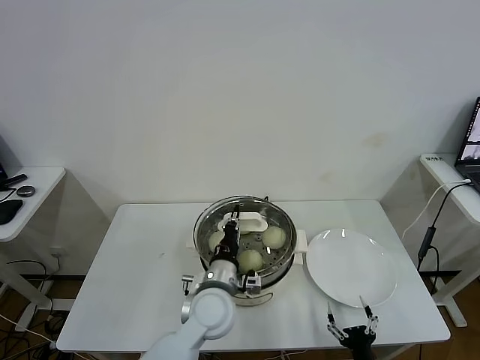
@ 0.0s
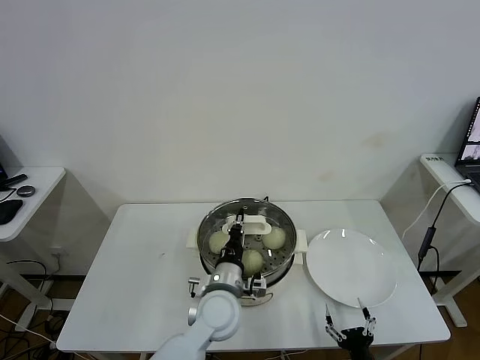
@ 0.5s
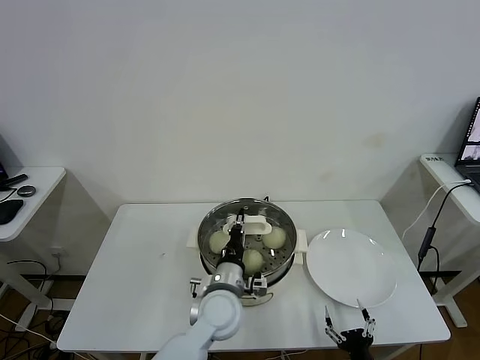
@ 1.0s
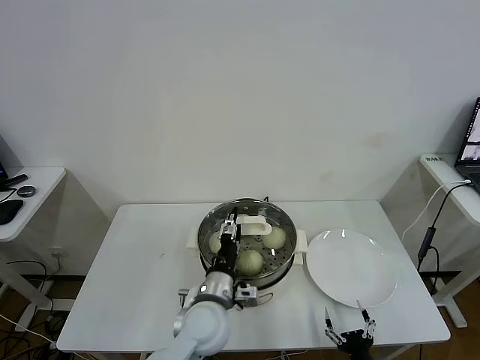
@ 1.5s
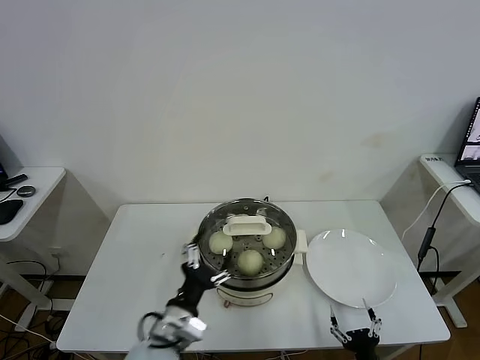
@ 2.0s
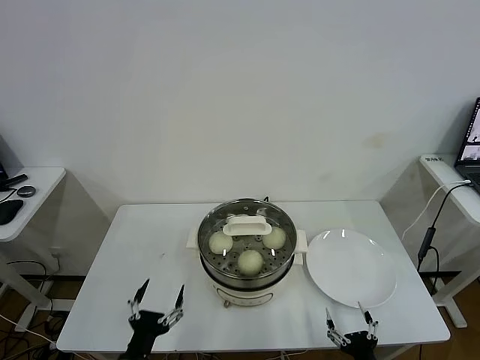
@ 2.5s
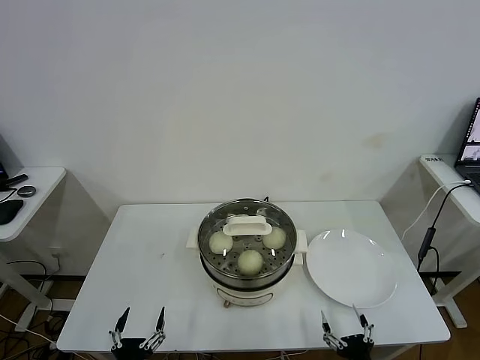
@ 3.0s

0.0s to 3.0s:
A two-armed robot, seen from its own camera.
Task of the whole recording: take steamed baozi put them in steamer.
0.0s to 1.5s: The left gripper opens.
1.5s to 3.0s: The left gripper goes approximately 30 cm backward, to the left and downward, and opens.
